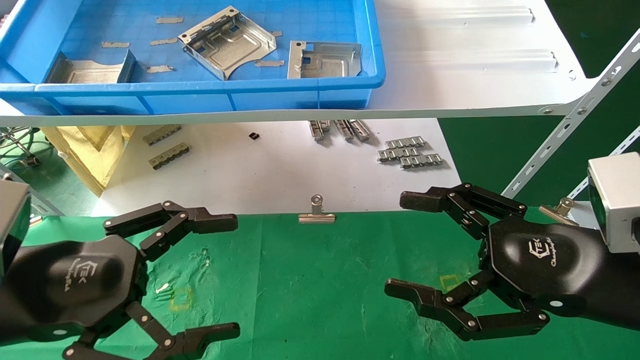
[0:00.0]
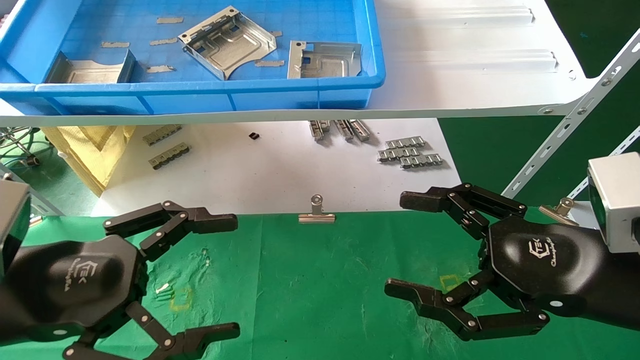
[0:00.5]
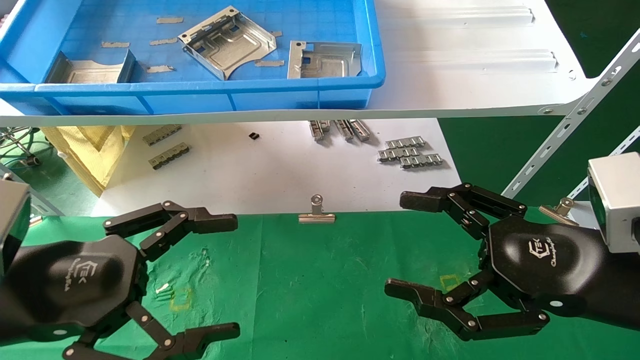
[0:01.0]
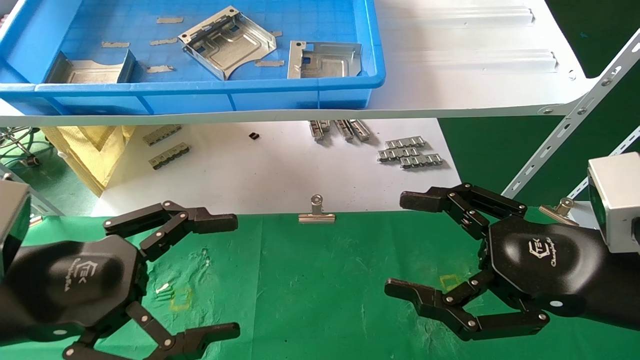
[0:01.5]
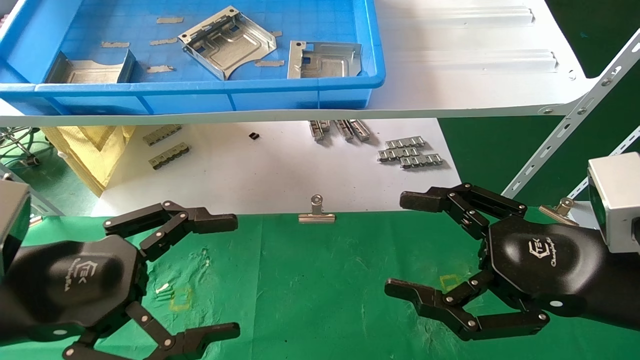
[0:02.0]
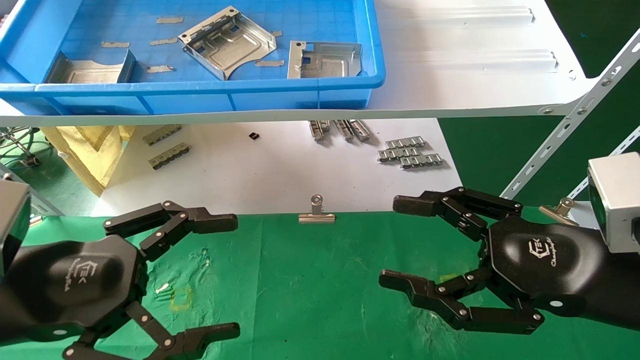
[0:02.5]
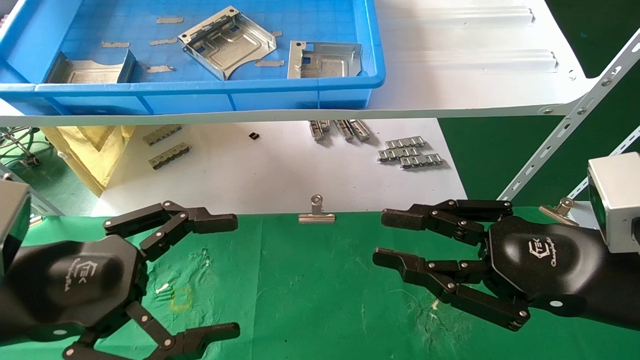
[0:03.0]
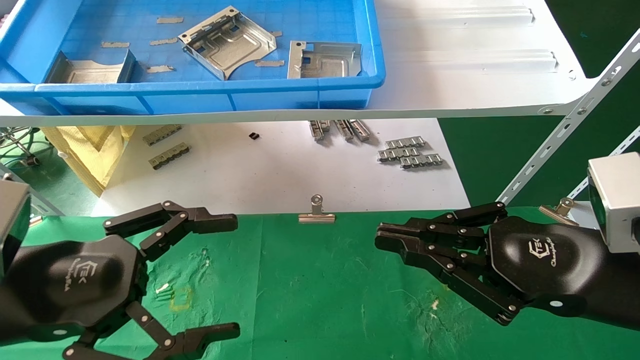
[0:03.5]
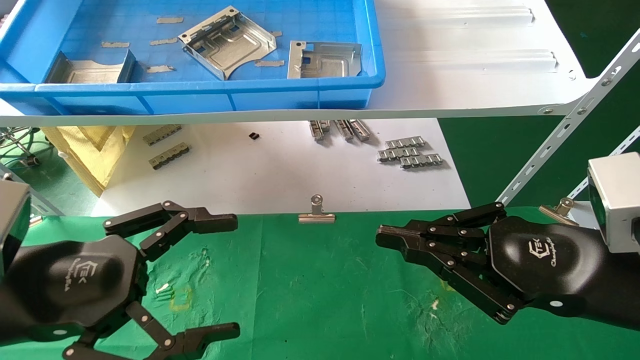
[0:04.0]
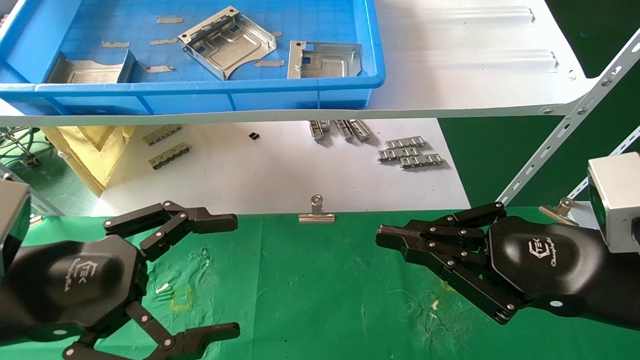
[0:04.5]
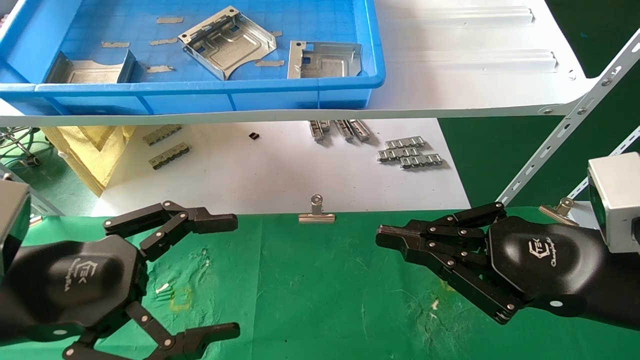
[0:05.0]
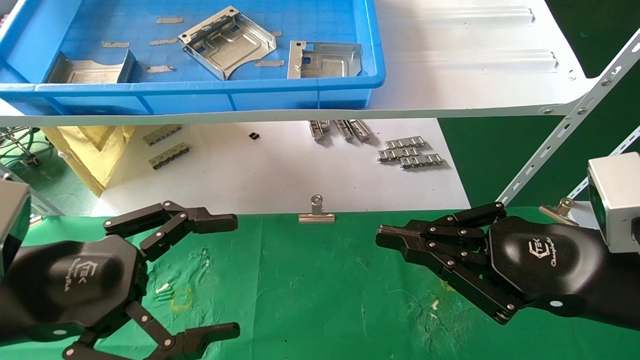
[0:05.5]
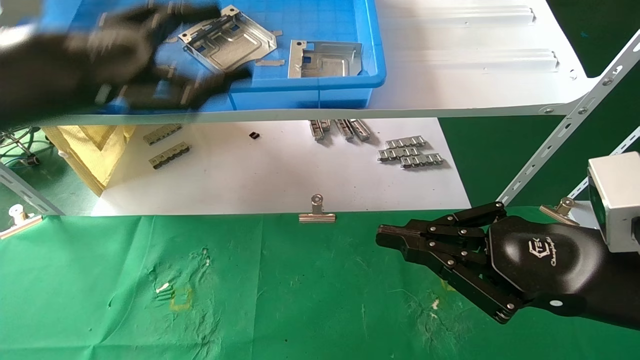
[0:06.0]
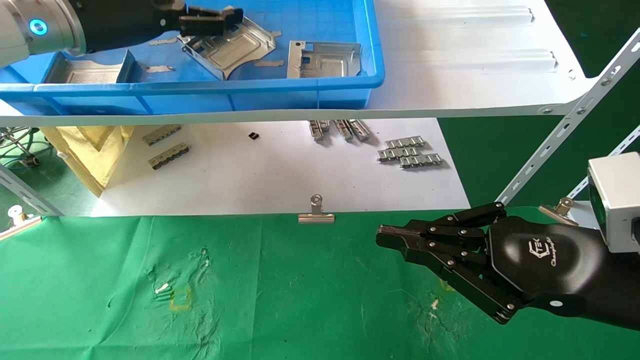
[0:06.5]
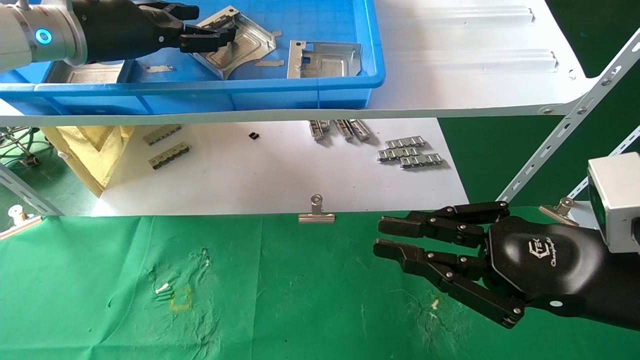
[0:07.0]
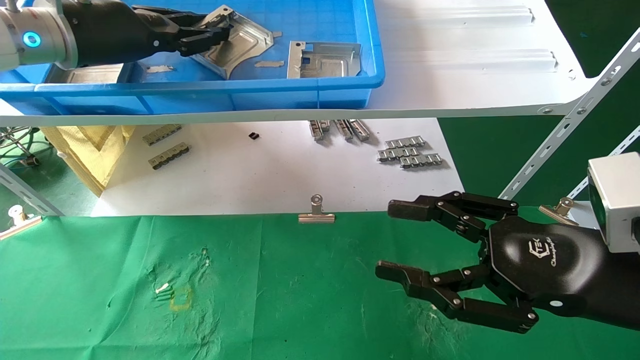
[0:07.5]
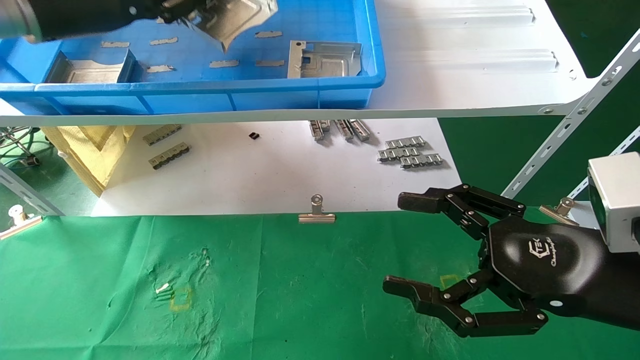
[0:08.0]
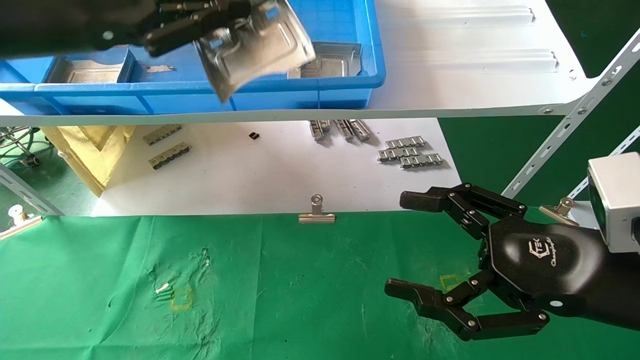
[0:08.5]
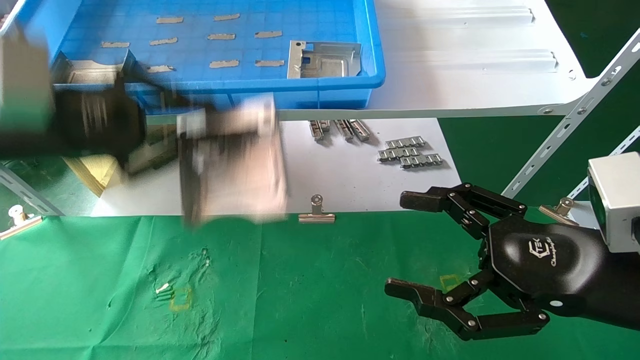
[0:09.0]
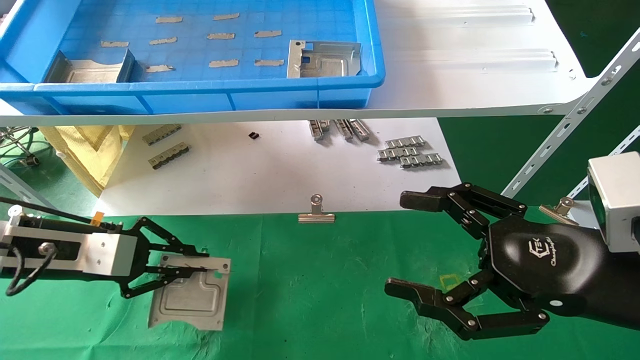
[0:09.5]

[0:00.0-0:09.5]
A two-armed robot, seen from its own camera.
Task of the whole recording: use the mechanical arm to pick up the parts and place them on the table.
Step, 0:06.0 to 0:07.5: Pick up the hard drive bracket from the feeding area.
0:00.0 to 0:02.0: The two grippers keep their place.
0:02.0 to 0:04.0: The right gripper closes up.
0:04.0 to 0:05.5: The two grippers keep their place.
0:05.5 to 0:07.5: The right gripper opens up, while the left gripper travels forward and upward by some 30 cm, and closes.
0:07.5 to 0:09.5: The left gripper goes roughly 20 cm downward, and closes its fingers. The right gripper opens its fingers.

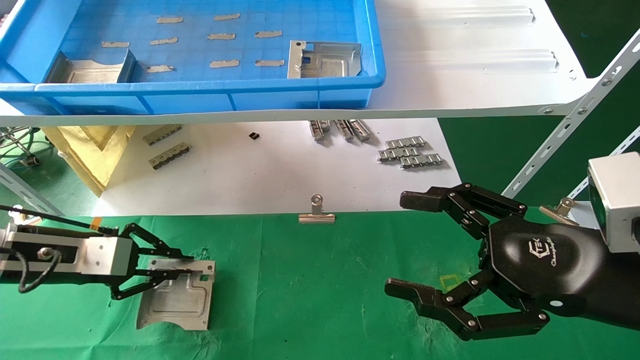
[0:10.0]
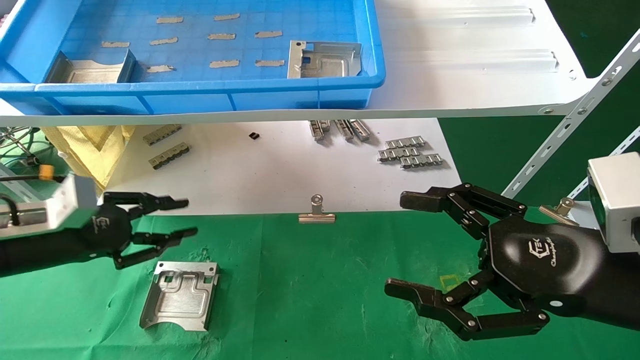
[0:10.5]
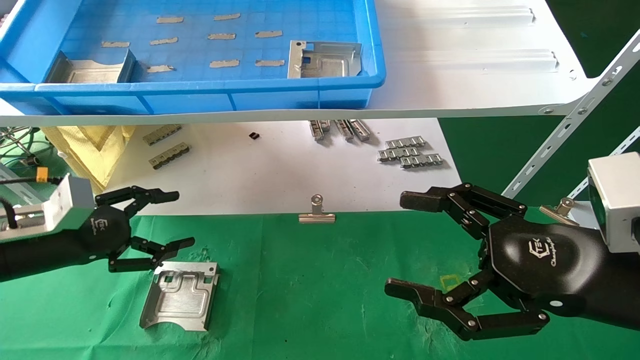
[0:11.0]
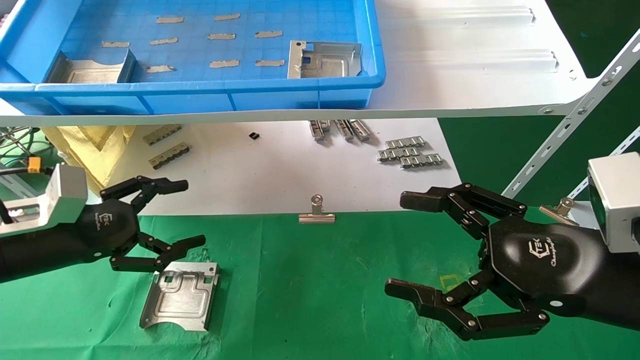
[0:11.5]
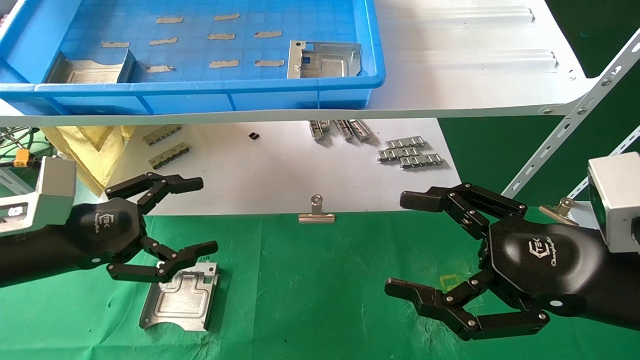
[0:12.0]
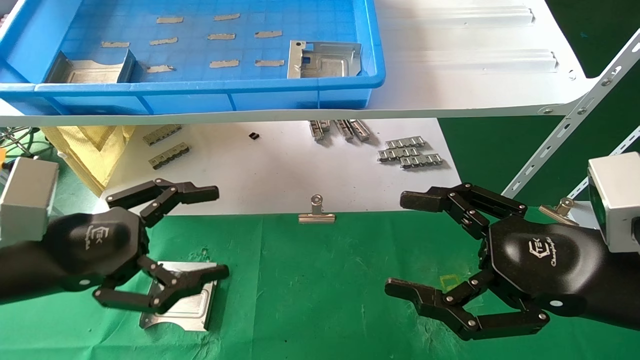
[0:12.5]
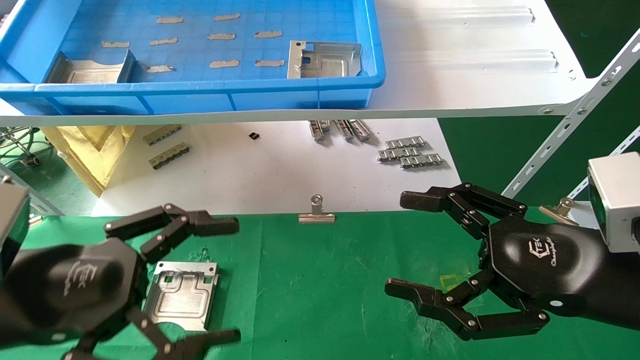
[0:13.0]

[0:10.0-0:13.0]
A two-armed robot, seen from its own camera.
Task of the whole recording: use the mechanical arm to pick up the parts and place them on the table.
0:10.0 to 0:11.5: The left gripper opens its fingers.
0:11.5 to 0:13.0: The left gripper shifts about 15 cm backward and to the right.

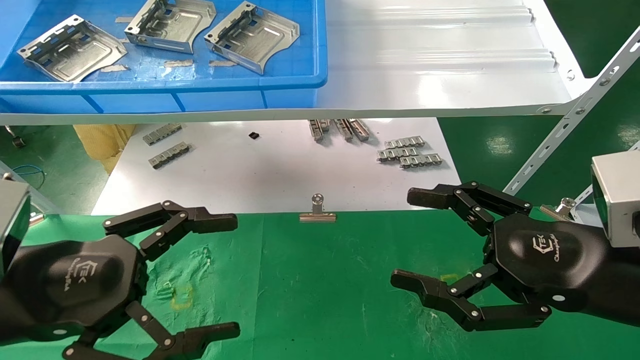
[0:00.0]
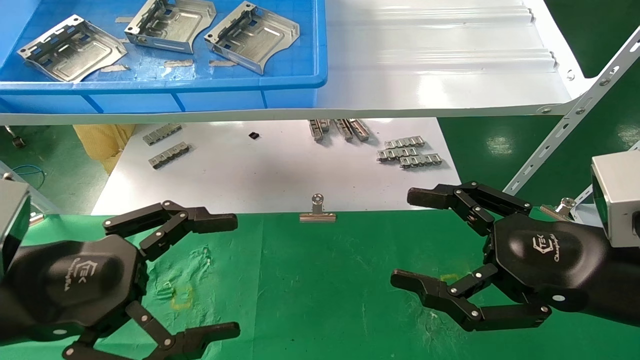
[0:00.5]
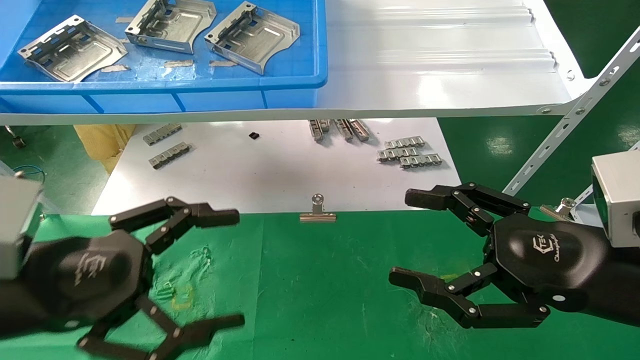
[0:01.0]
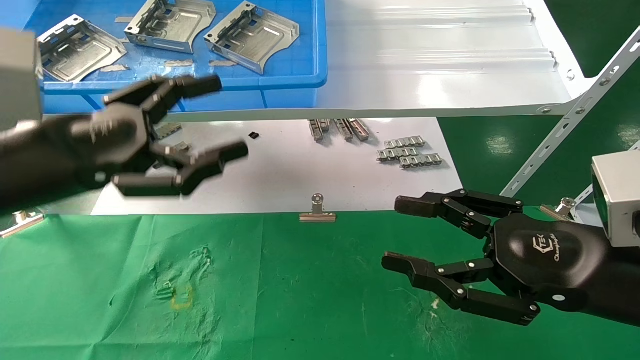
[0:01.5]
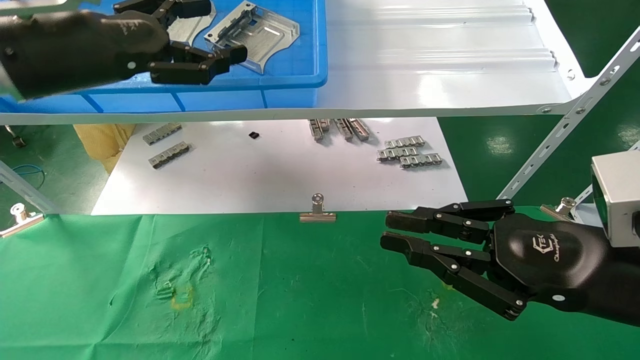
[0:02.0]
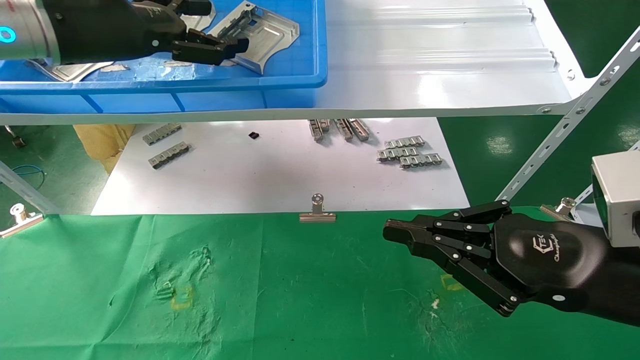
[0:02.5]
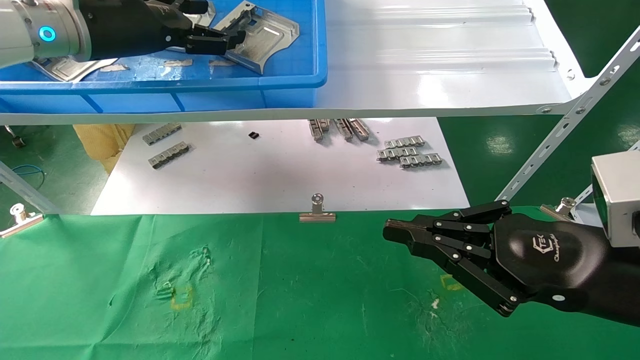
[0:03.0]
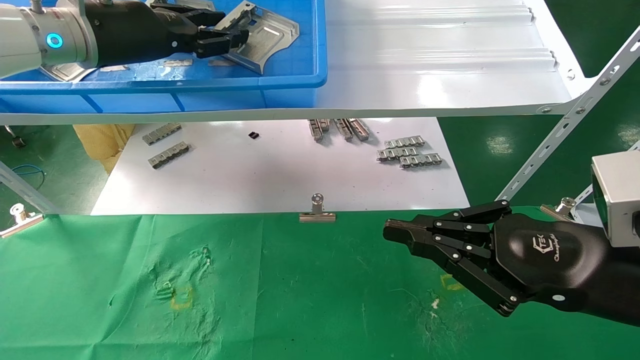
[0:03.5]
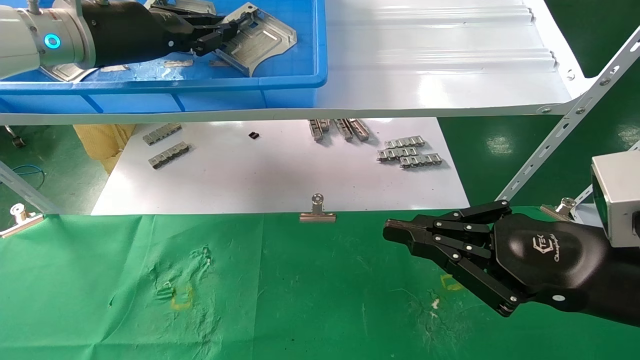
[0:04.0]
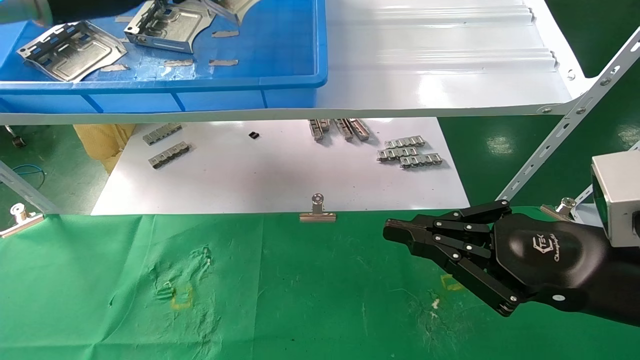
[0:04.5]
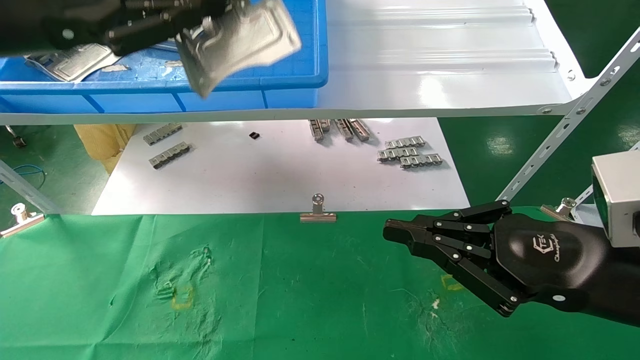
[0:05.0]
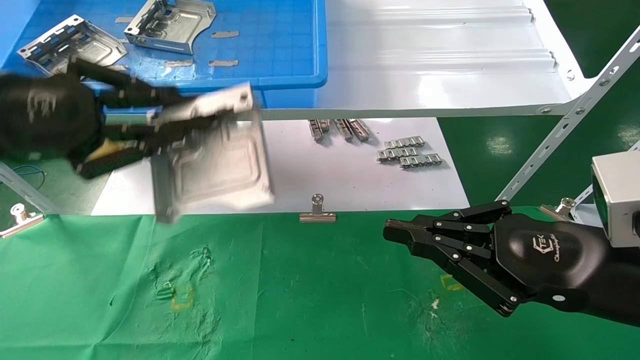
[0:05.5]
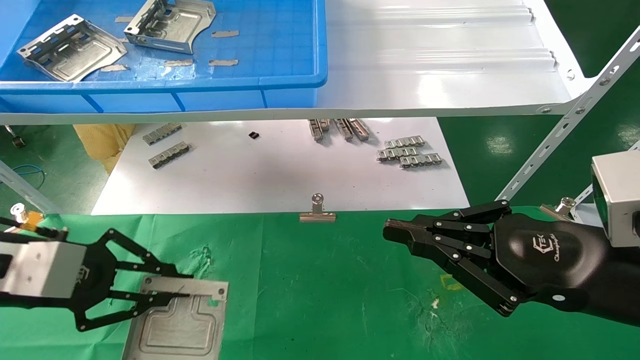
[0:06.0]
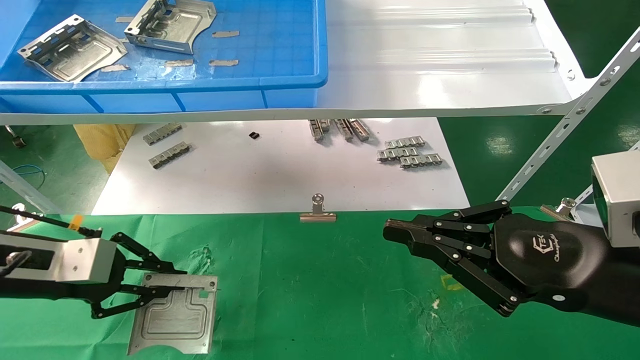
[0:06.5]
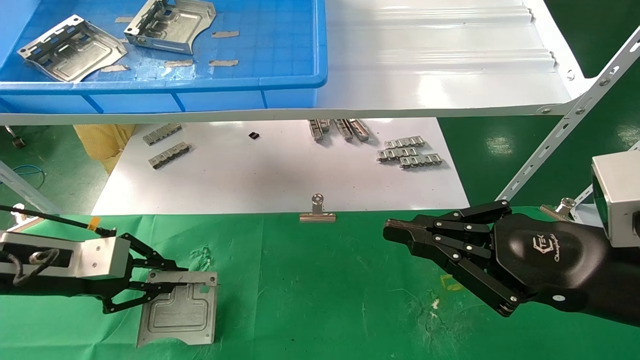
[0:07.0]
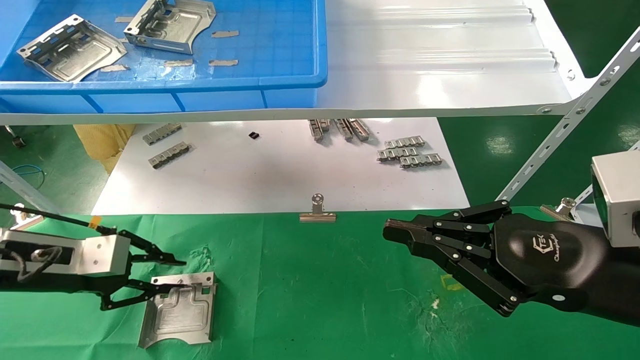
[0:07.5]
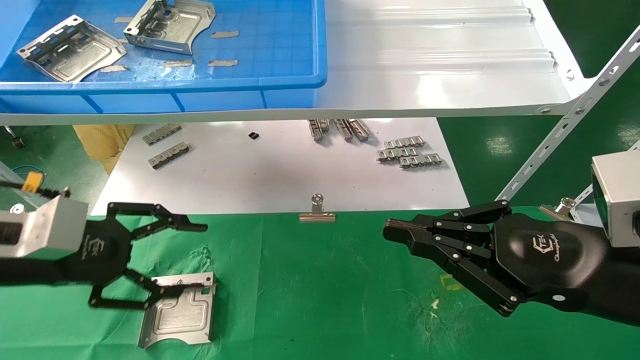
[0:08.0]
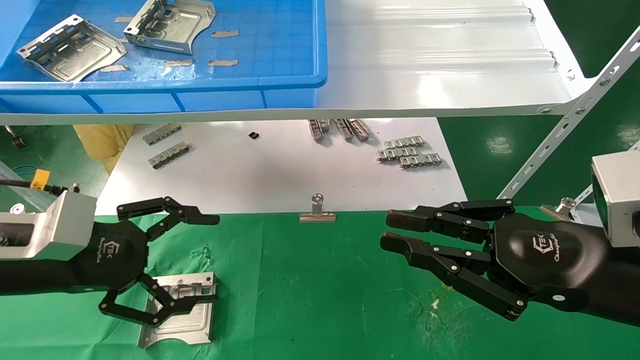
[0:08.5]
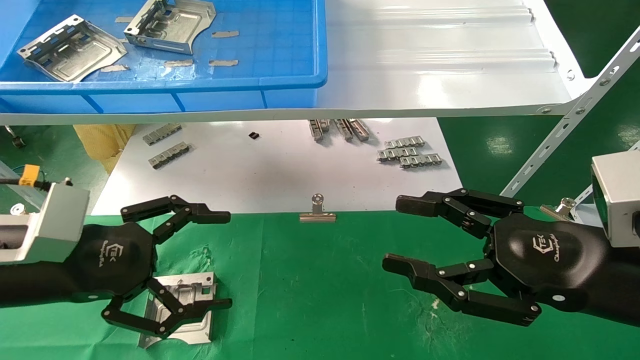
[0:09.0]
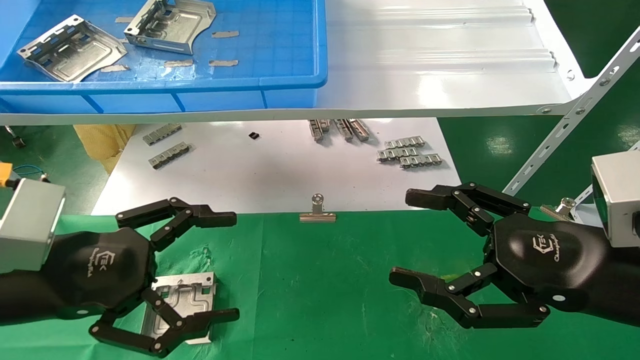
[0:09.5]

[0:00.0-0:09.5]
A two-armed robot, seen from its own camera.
Task of the whole recording: use the mechanical arm to pick up the parts and place them on the table.
Step, 0:01.5 to 0:04.0: Pick up the hard drive bracket from the feeding area.
Step, 0:04.5 to 0:07.5: Place the hard drive bracket into the box.
0:00.0 to 0:02.0: The left gripper goes roughly 20 cm upward and forward. Meanwhile the right gripper closes its fingers.
0:02.0 to 0:04.0: The left gripper heads forward, covering approximately 10 cm, and closes.
0:04.0 to 0:05.5: The left gripper is displaced backward and downward by about 20 cm.
0:05.5 to 0:07.5: The left gripper travels downward and forward by some 15 cm.
0:07.5 to 0:09.5: The left gripper travels backward and to the right by some 15 cm, and opens. Meanwhile the right gripper opens.
